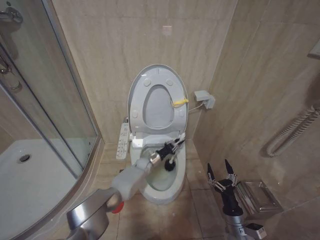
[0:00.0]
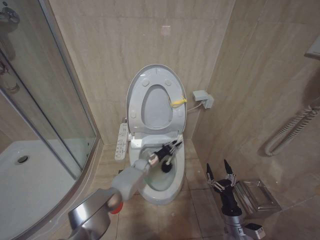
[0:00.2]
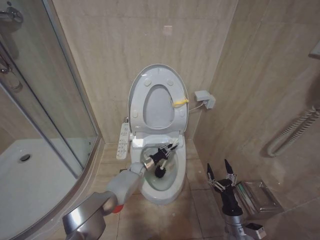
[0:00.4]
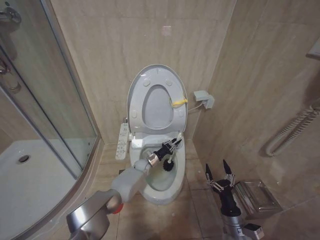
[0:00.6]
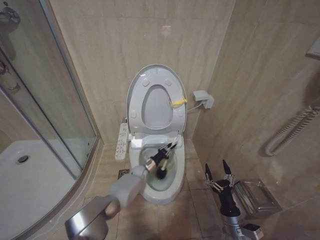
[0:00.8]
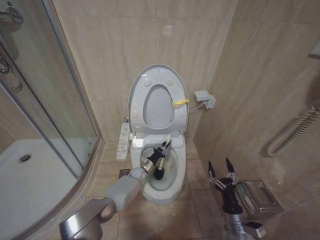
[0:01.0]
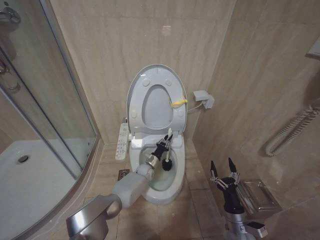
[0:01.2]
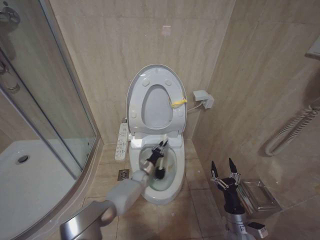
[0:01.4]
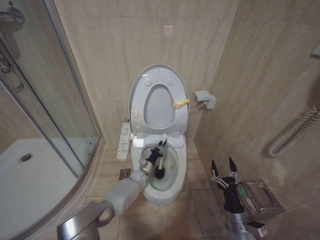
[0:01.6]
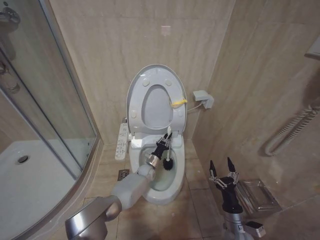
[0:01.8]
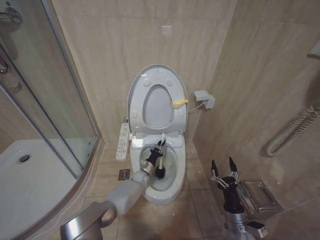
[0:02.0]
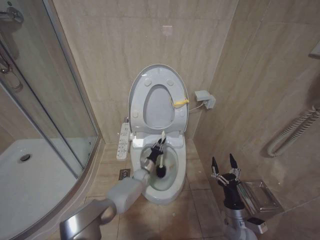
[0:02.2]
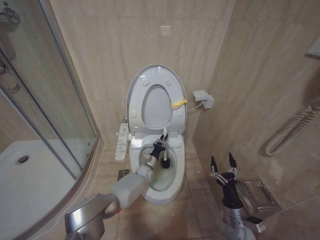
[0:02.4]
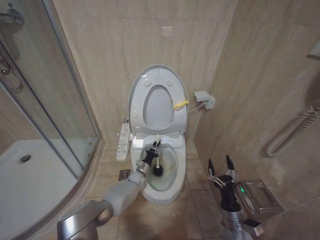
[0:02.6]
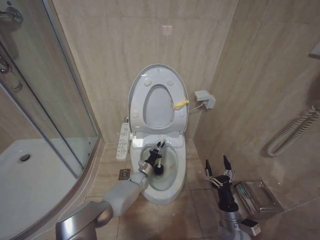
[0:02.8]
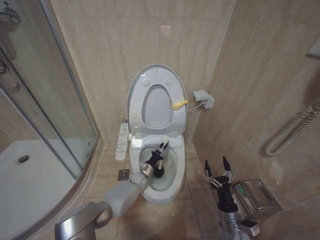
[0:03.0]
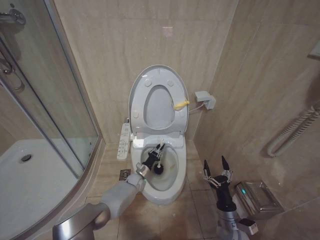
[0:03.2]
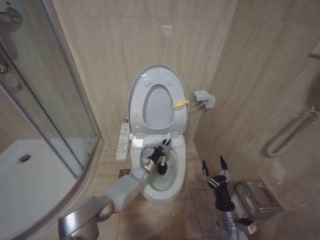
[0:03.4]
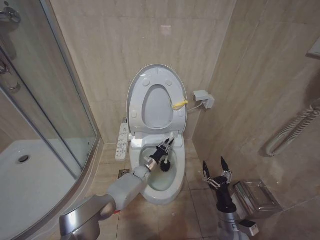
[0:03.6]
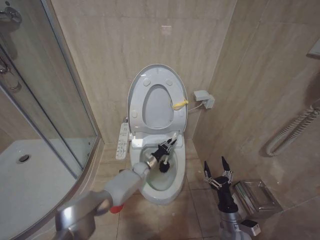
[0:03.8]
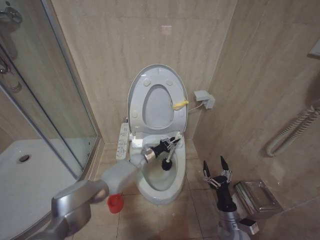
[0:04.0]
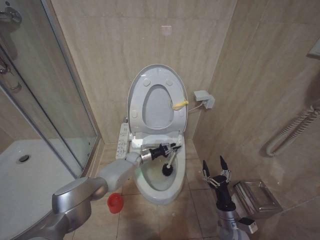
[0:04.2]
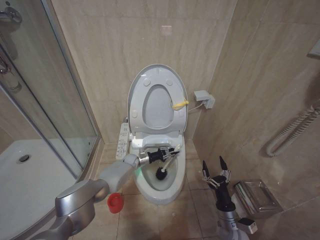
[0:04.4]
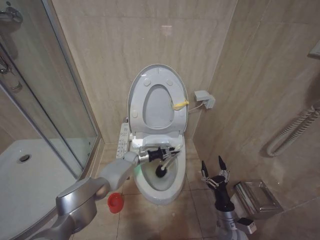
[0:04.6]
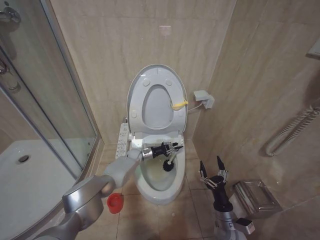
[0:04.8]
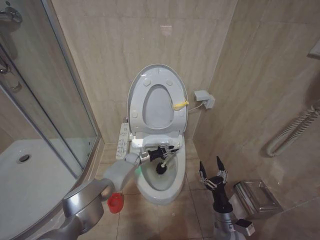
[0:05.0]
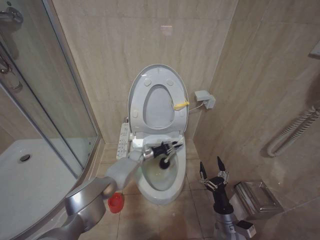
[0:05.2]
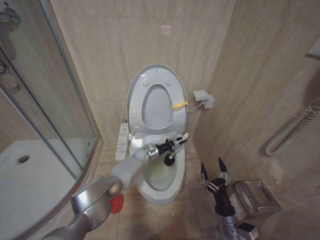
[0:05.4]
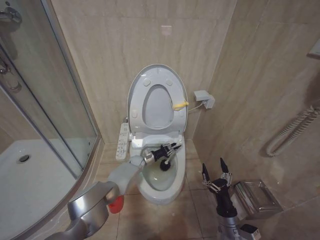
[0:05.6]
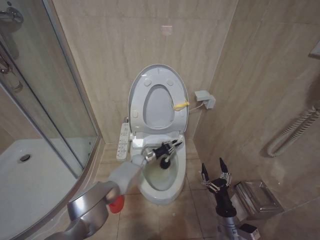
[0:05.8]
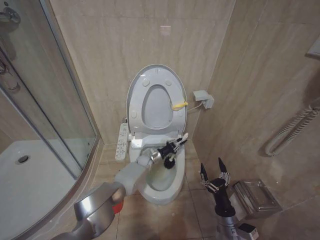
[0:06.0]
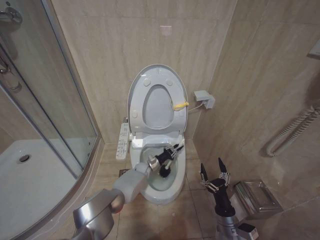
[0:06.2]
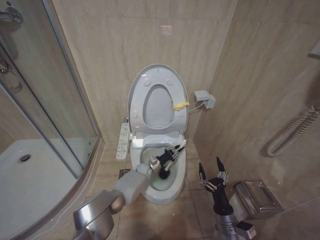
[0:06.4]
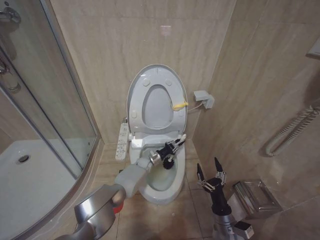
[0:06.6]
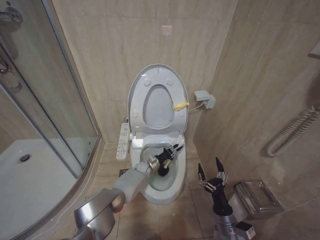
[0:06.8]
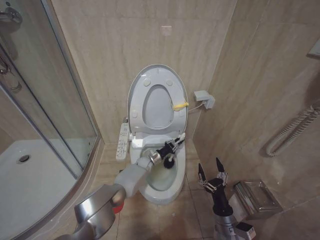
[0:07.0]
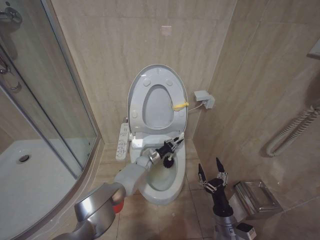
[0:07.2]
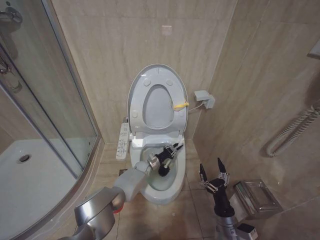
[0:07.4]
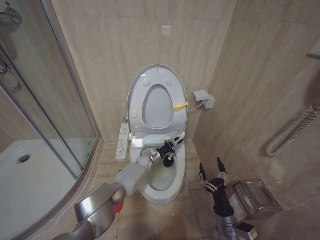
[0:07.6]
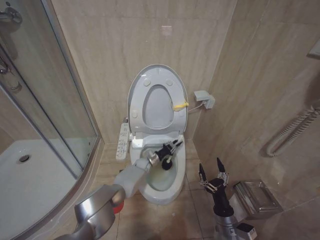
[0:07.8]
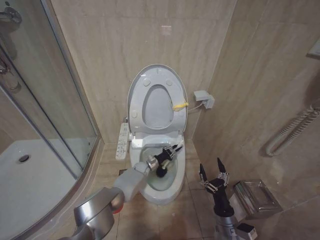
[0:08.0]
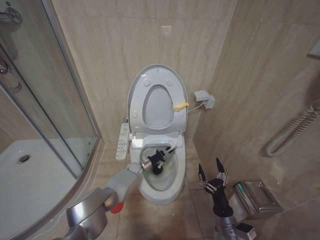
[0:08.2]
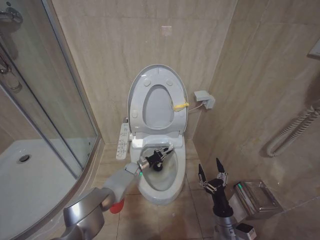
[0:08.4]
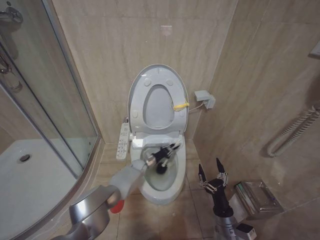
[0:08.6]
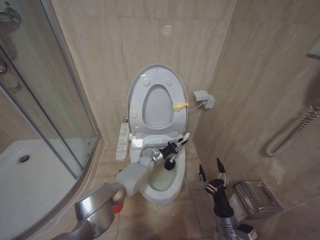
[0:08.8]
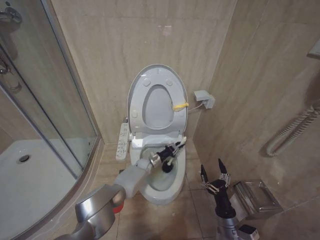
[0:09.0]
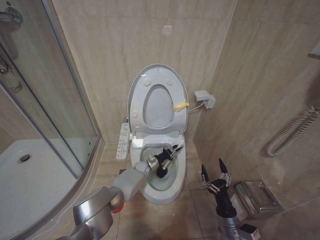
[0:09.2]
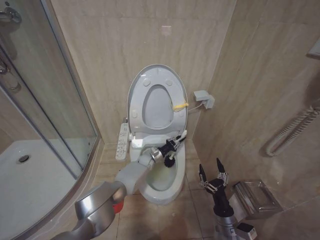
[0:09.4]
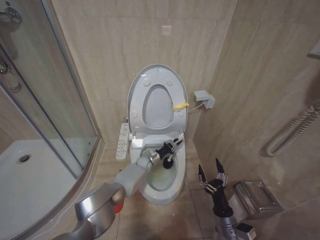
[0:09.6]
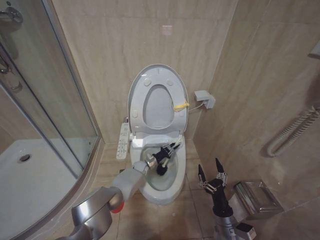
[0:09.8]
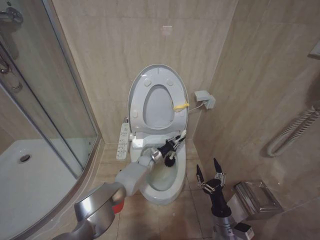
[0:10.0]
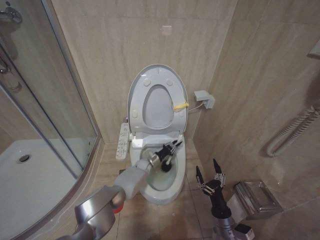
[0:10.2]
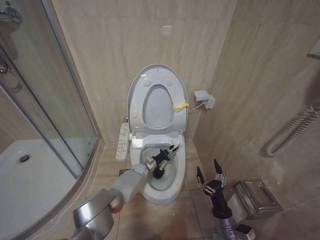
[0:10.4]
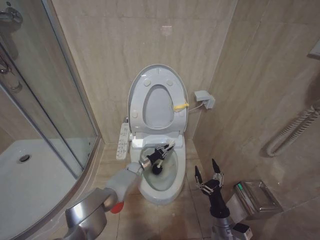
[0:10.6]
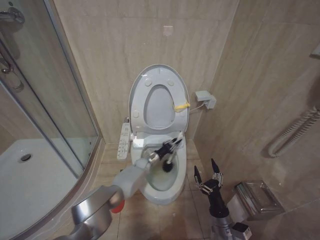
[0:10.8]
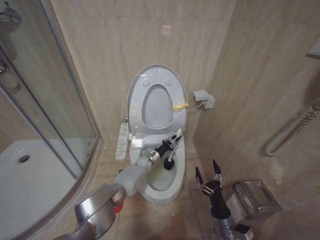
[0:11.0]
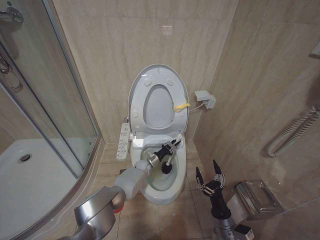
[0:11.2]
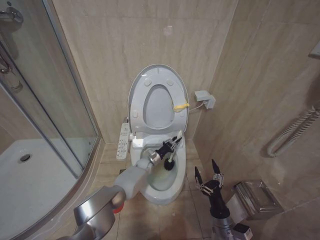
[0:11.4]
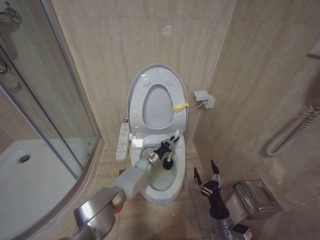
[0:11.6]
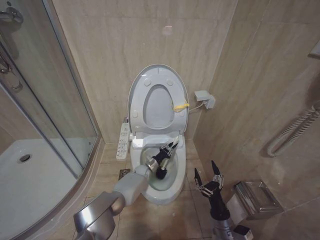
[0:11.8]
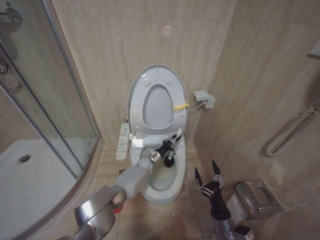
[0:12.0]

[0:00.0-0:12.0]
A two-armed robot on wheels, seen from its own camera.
Task of the whole recording: Open the toilet lid, clean the toilet bowl with a toilet brush, close the toilet lid, and flush.
0:00.0 to 0:01.6: The left gripper shifts by about 5 cm.
0:03.0 to 0:04.4: The left gripper heads forward and upward, covering approximately 10 cm.
0:04.4 to 0:06.0: The left gripper is displaced to the right by some 5 cm.
0:09.0 to 0:10.4: The grippers stay close to where they were, moving slightly.
0:10.4 to 0:12.0: The grippers make only small movements.

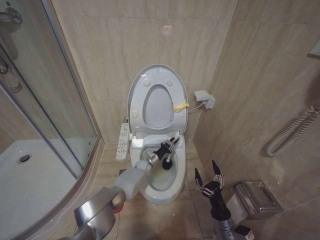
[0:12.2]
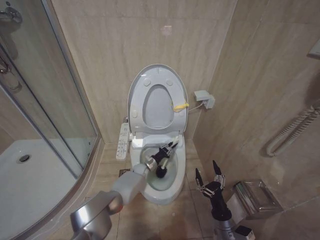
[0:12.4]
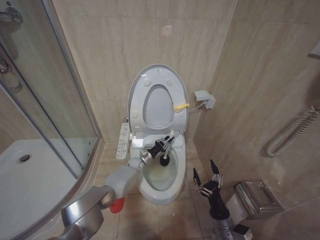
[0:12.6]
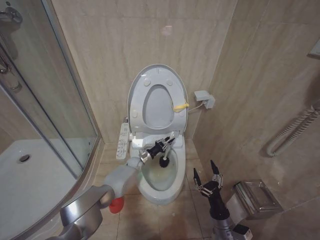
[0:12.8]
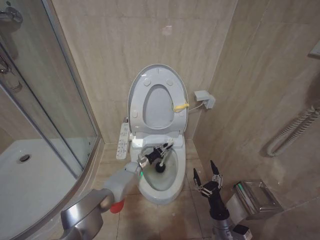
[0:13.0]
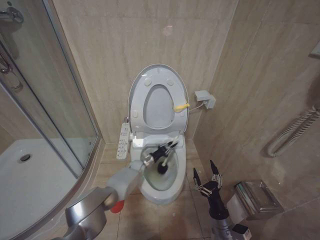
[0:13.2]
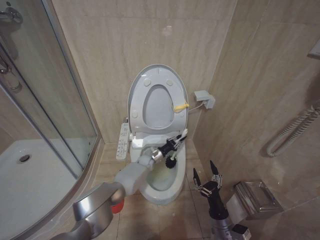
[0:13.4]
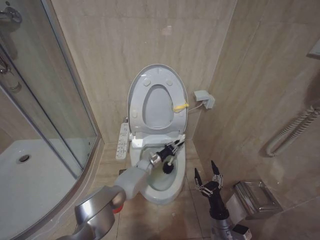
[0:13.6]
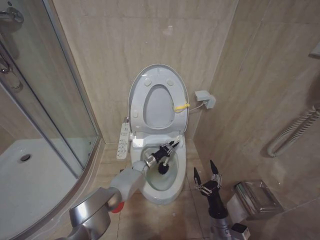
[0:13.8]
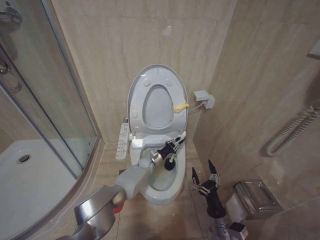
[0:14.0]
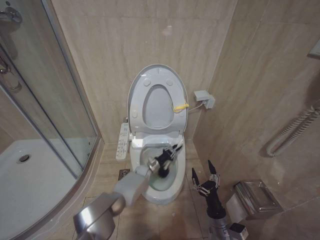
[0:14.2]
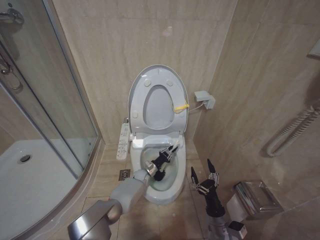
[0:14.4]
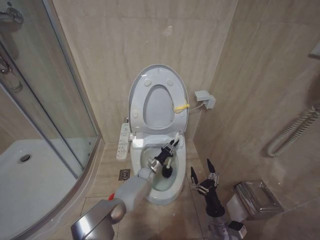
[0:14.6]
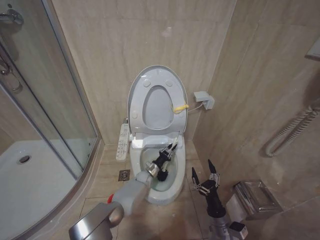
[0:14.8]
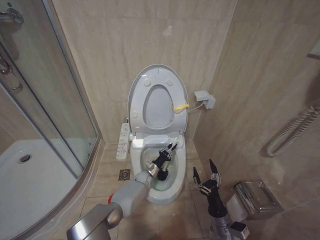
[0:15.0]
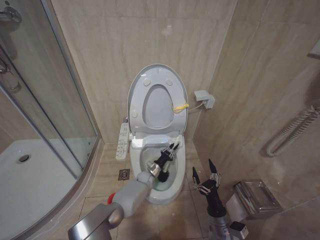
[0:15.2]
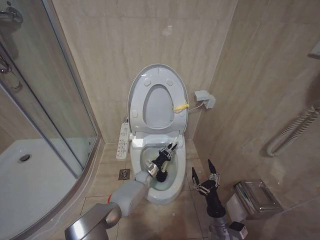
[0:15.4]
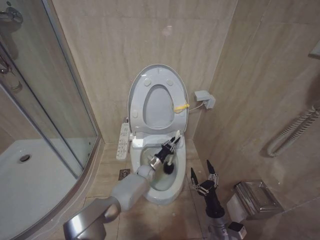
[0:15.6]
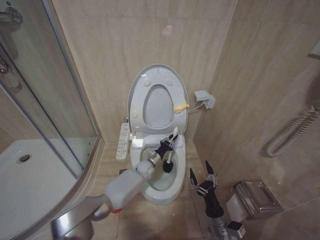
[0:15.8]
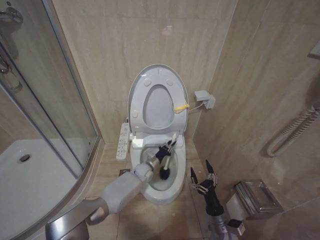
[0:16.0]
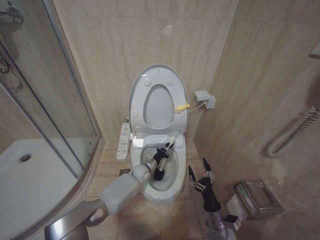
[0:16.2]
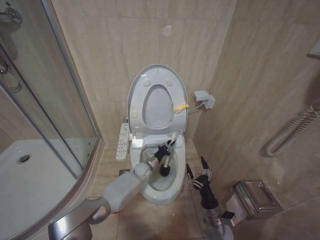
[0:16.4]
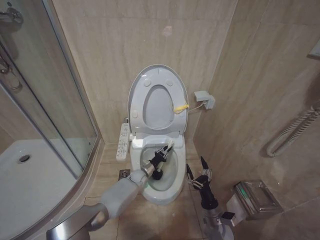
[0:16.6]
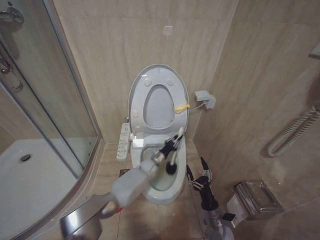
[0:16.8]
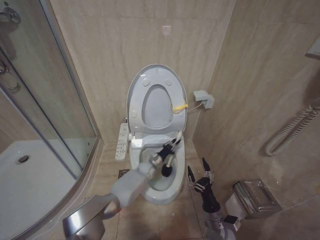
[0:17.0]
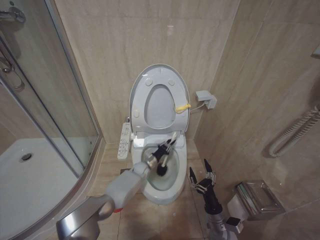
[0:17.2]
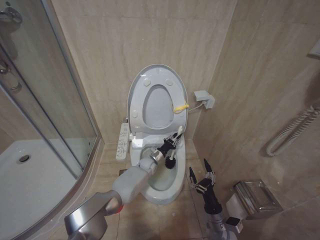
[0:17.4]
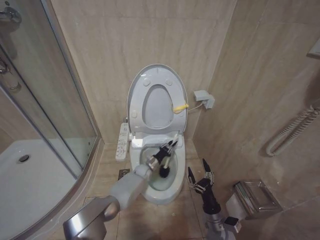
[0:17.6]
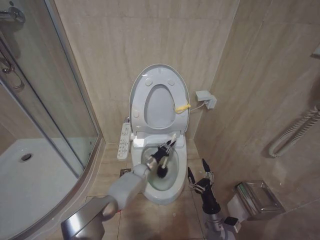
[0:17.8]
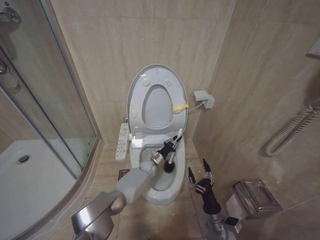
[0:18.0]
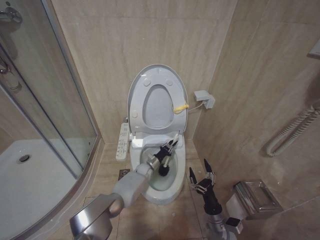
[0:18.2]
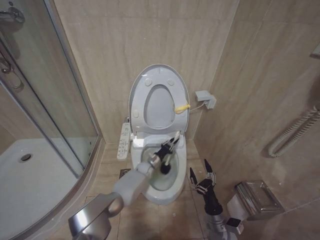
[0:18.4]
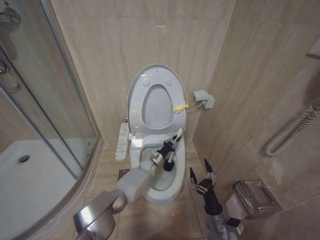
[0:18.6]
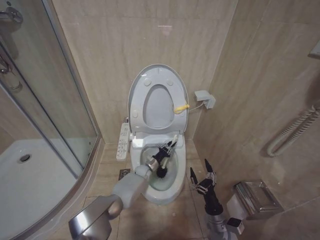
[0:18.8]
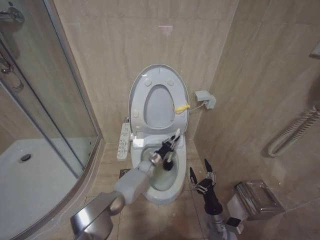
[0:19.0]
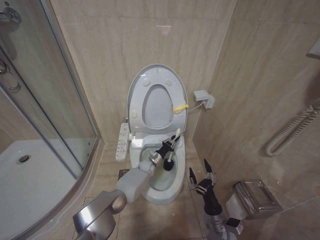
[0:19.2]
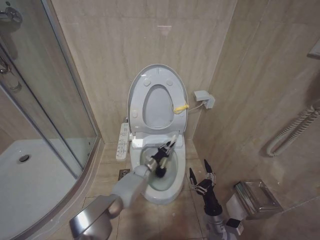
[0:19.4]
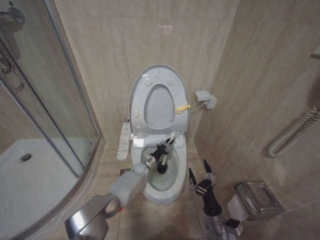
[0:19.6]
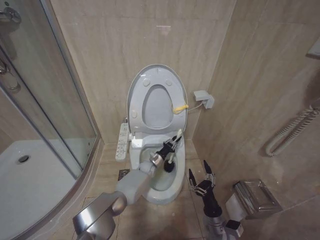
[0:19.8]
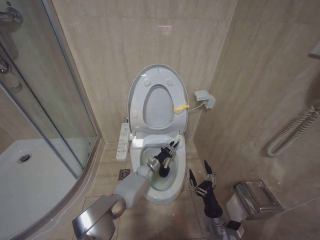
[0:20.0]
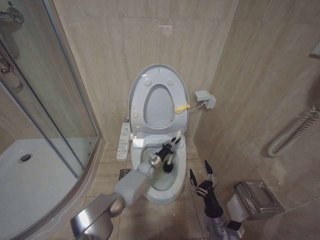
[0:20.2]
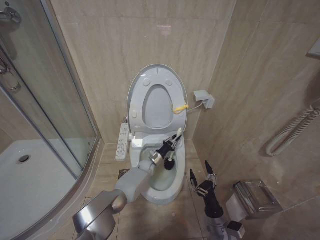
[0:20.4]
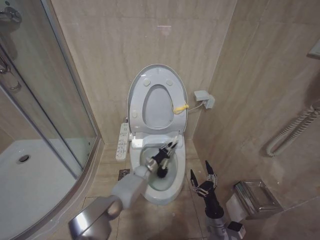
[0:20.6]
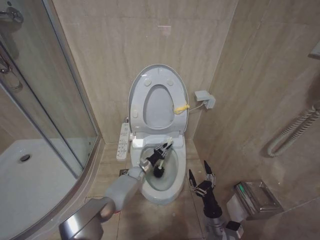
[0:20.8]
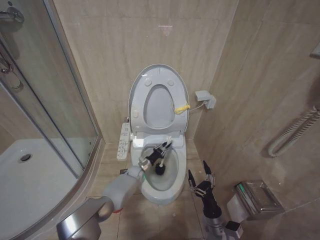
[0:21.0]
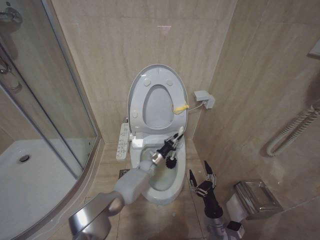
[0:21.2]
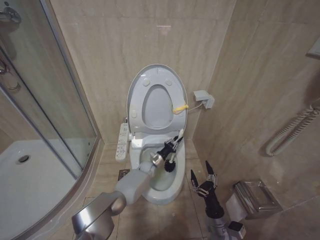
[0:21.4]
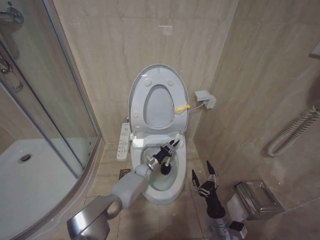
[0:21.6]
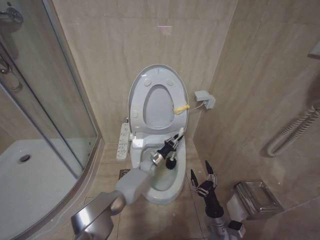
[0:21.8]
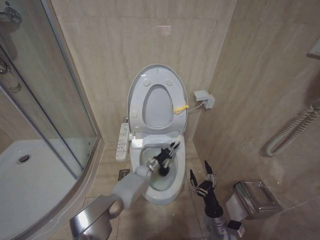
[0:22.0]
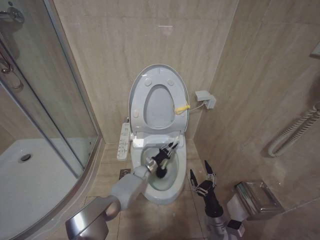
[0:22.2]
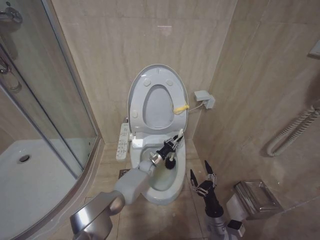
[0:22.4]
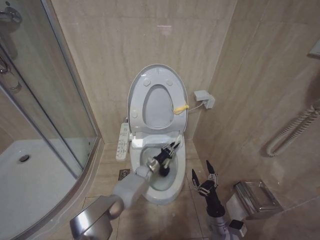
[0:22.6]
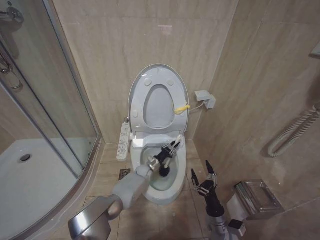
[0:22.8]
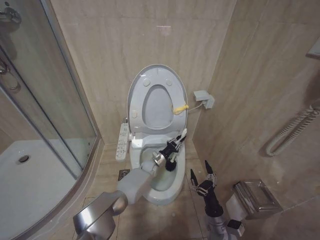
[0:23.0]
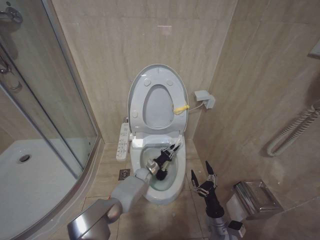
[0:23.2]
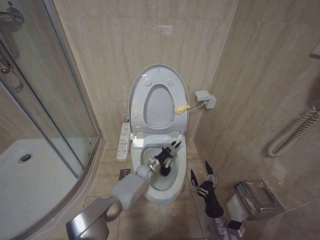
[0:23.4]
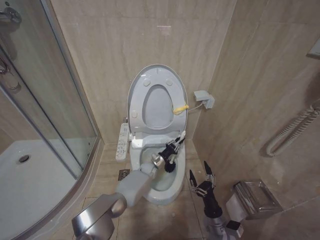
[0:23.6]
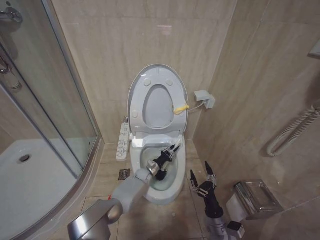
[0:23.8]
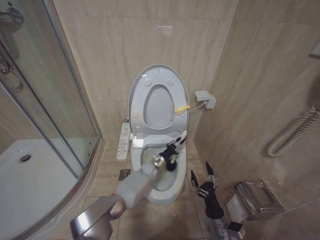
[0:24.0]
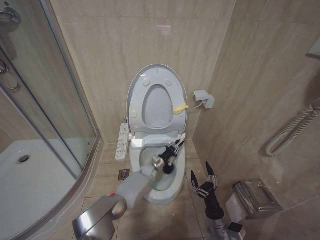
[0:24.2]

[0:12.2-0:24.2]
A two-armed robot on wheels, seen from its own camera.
Task of the whole recording: Open the toilet lid, clean the toilet bowl with a toilet brush, close the toilet lid, and flush.
0:12.2 to 0:13.8: The left gripper travels to the left and back again, about 5 cm each way.
0:13.8 to 0:15.2: The left gripper moves some 5 cm.
0:15.2 to 0:16.6: The left gripper reaches about 5 cm upward, then returns.
0:16.6 to 0:18.2: The left gripper swings left and right, some 5 cm each way, with 2 reversals.
0:18.2 to 0:19.8: There are only small adjustments of the grippers.
0:19.8 to 0:21.2: The left gripper moves roughly 10 cm to the left and comes back.
0:21.2 to 0:24.2: The grippers stay close to where they were, moving slightly.
